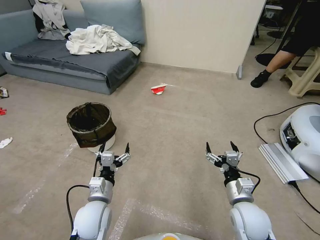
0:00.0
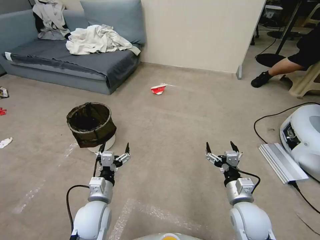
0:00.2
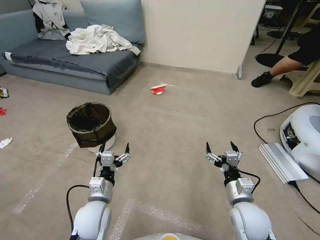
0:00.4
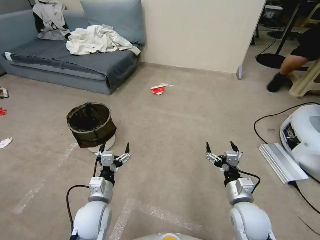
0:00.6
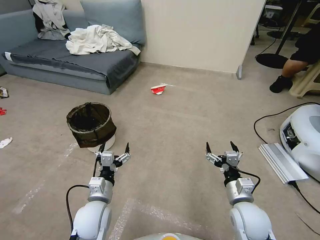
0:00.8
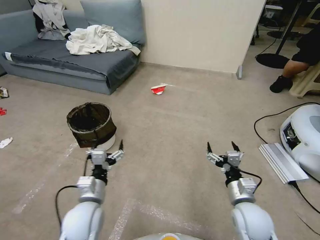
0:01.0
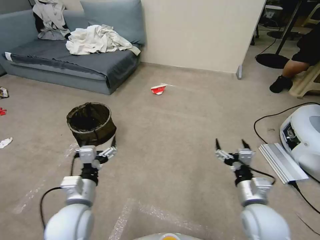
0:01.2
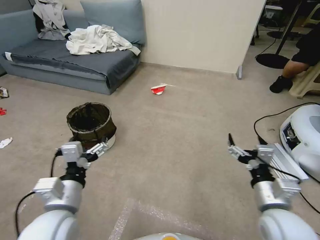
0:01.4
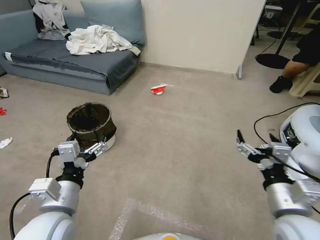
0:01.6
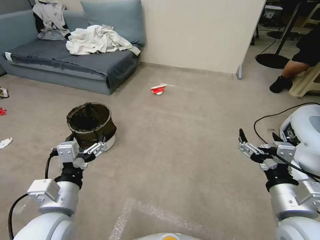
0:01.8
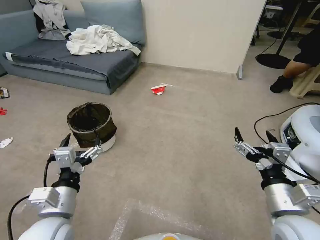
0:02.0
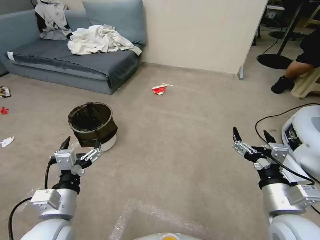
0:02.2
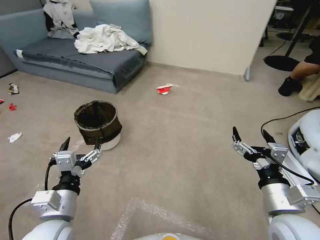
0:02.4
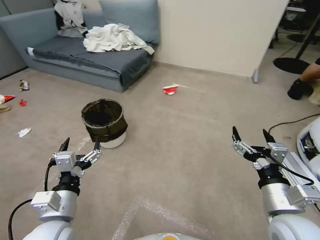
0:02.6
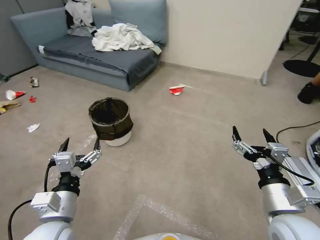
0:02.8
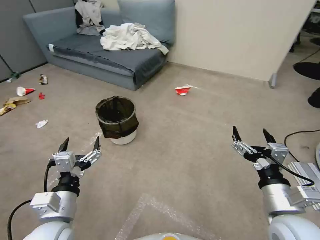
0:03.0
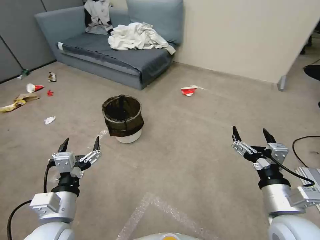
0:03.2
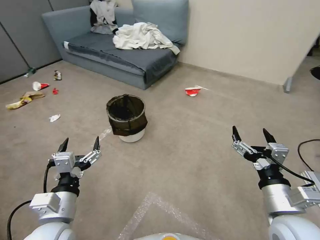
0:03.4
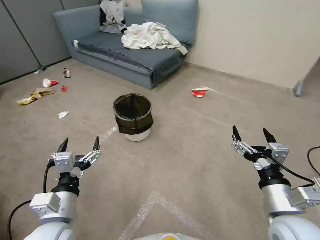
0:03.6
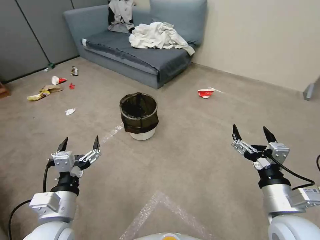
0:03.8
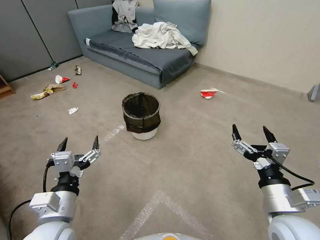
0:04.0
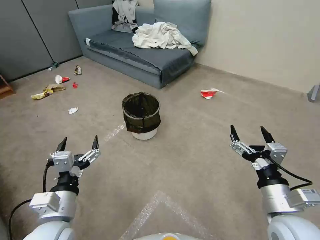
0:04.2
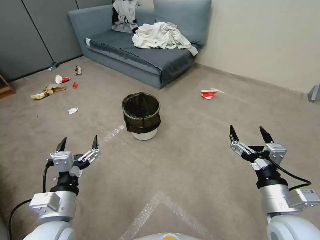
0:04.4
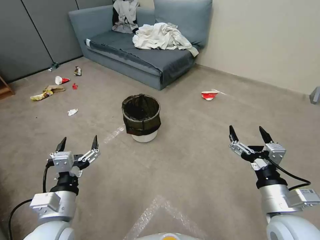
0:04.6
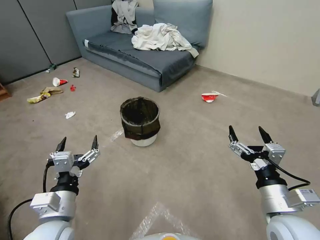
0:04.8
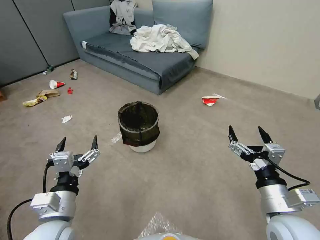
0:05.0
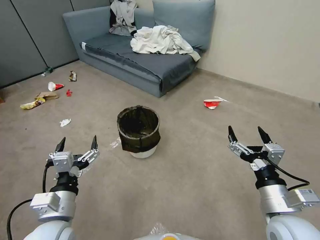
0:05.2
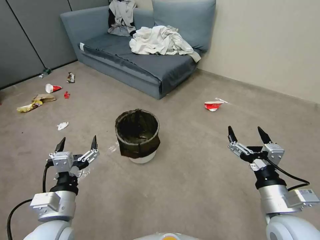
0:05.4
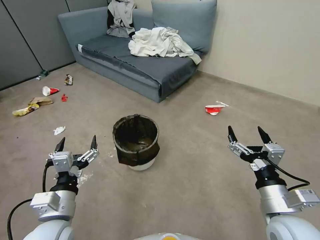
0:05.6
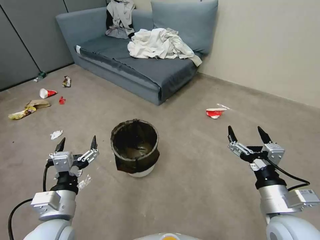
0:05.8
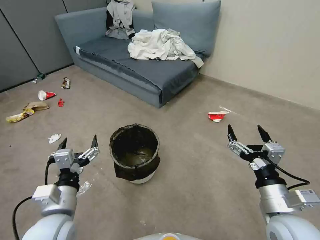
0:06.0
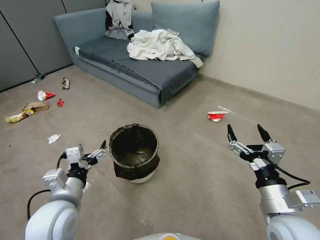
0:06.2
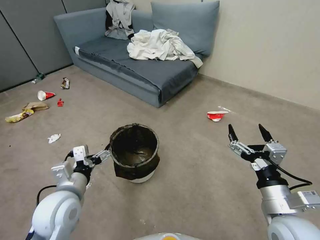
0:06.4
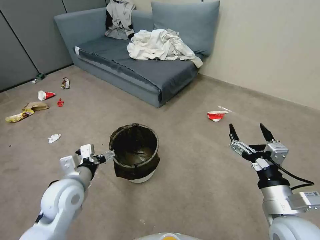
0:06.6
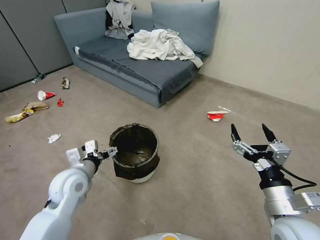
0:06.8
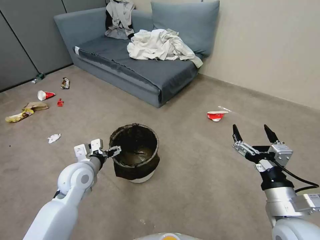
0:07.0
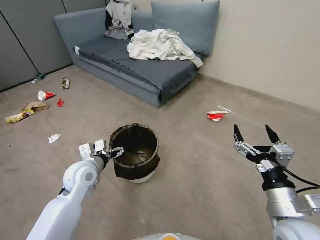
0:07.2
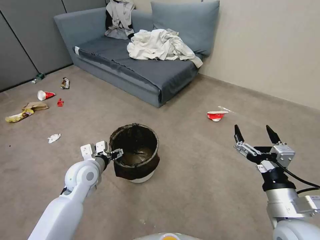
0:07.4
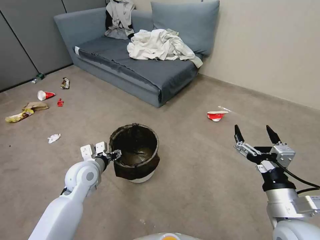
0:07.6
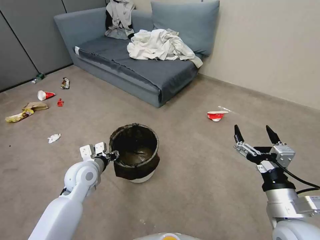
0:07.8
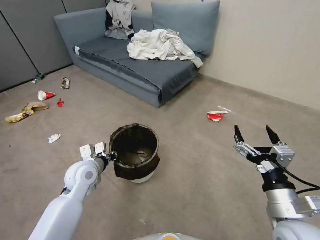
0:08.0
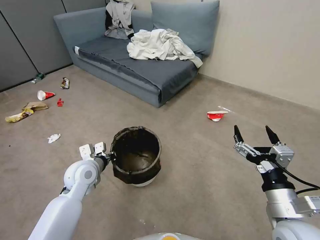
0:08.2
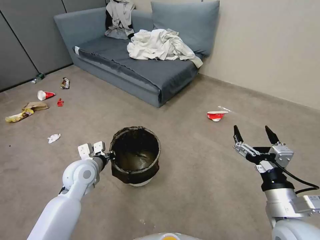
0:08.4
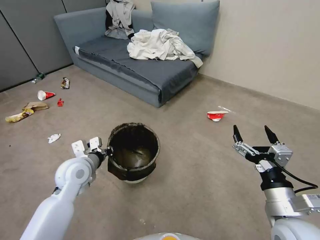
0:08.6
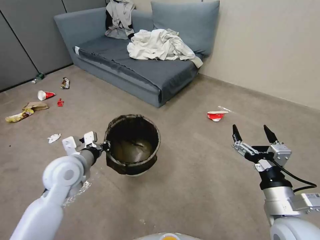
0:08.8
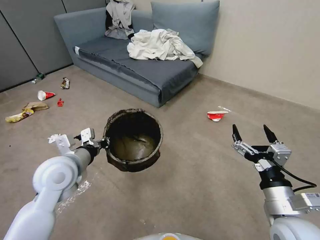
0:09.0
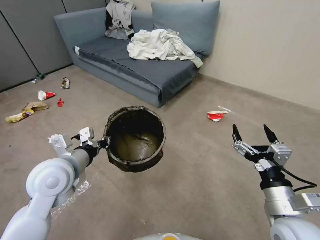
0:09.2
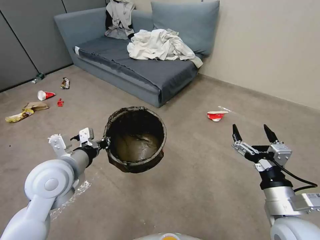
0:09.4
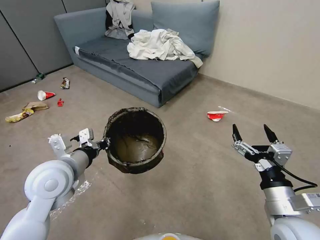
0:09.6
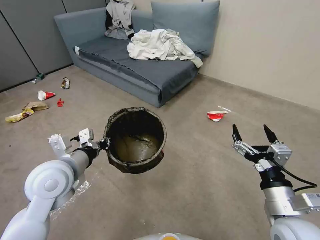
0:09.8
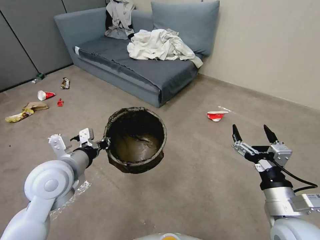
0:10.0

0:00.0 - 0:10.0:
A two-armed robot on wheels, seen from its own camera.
Task of the whole recording: Pick up the trash can from the floor.
0:05.8 - 0:07.2: The left gripper moves forward, some 15 cm.
0:07.2 - 0:08.6: The left gripper closes its fingers.
0:08.6 - 0:10.0: The left gripper moves upward and backward, roughly 10 cm.
